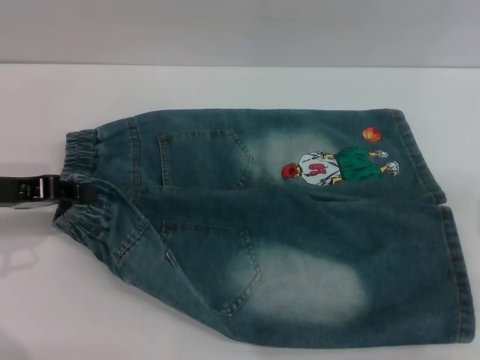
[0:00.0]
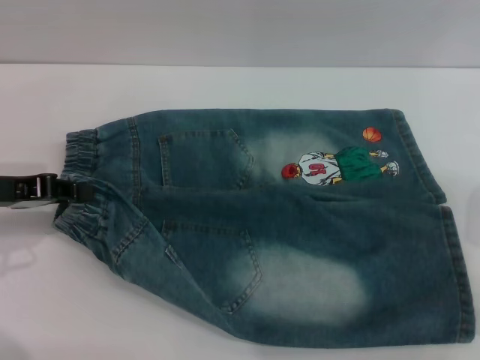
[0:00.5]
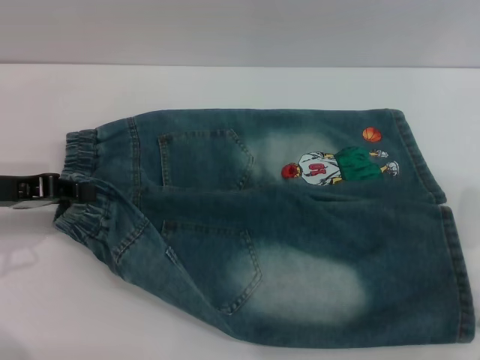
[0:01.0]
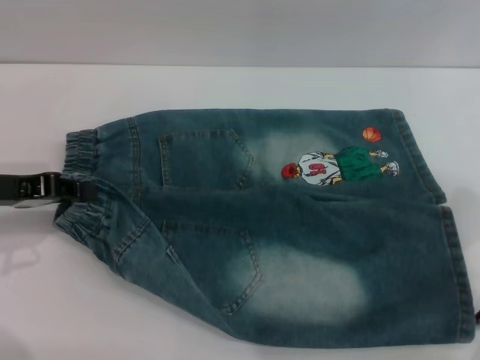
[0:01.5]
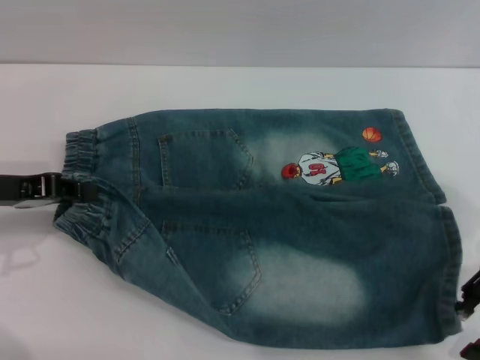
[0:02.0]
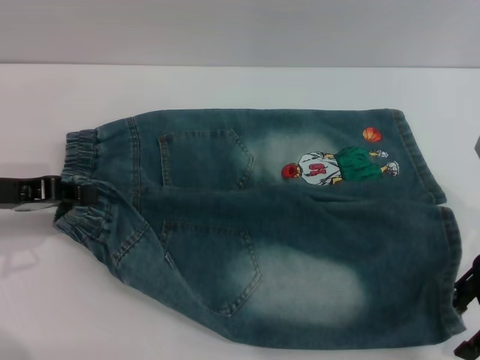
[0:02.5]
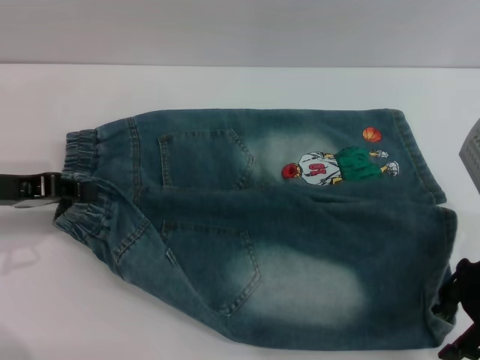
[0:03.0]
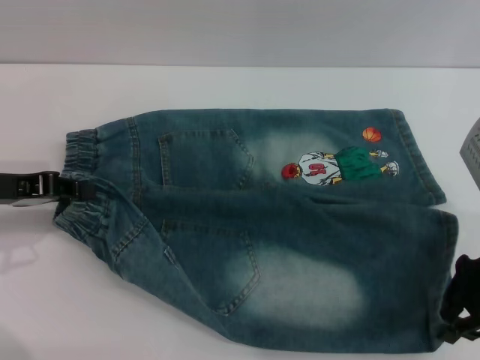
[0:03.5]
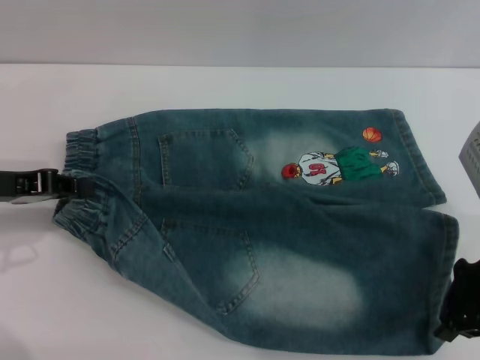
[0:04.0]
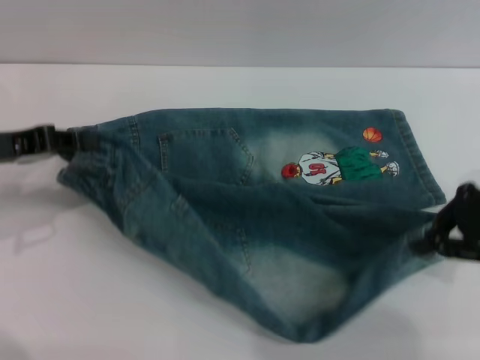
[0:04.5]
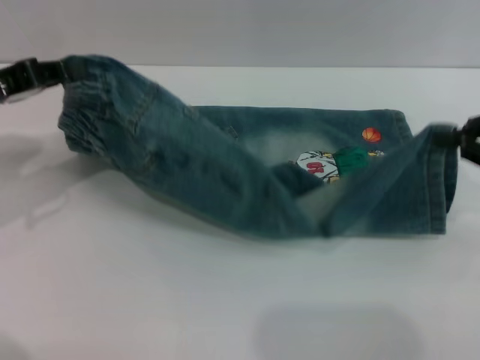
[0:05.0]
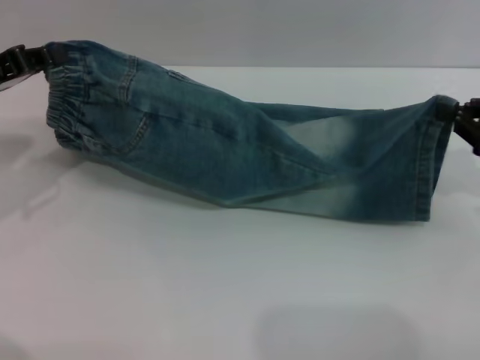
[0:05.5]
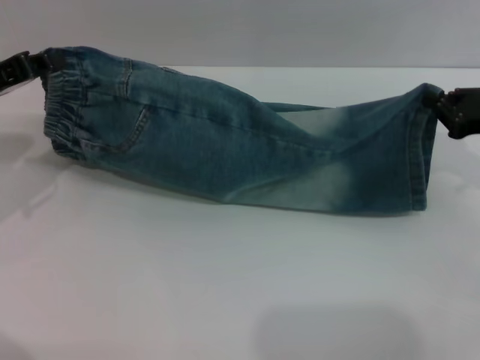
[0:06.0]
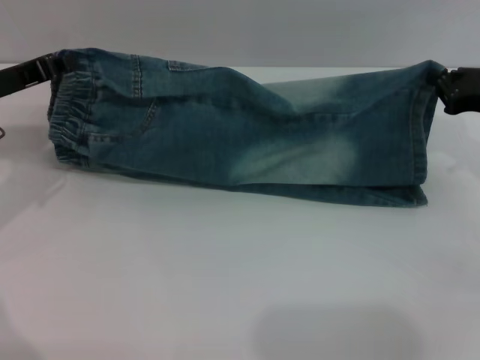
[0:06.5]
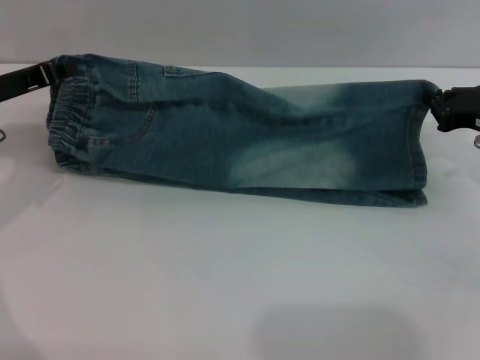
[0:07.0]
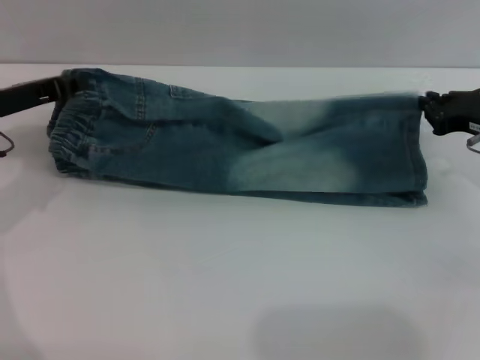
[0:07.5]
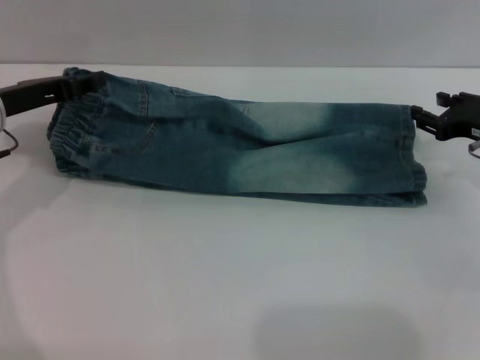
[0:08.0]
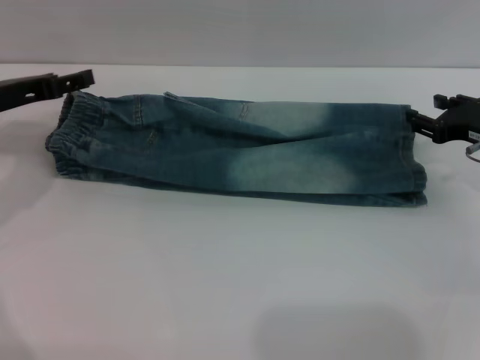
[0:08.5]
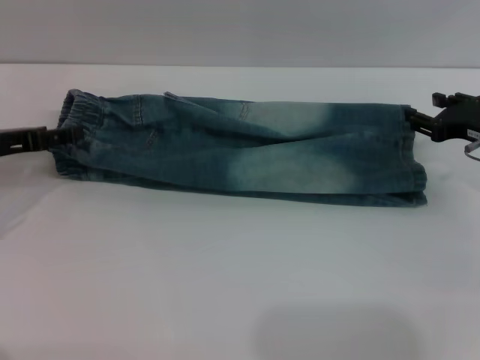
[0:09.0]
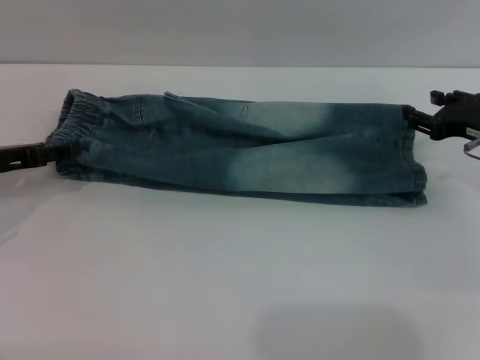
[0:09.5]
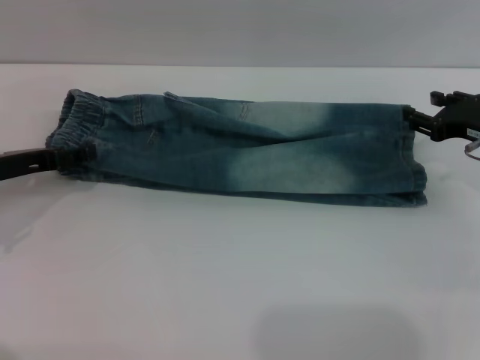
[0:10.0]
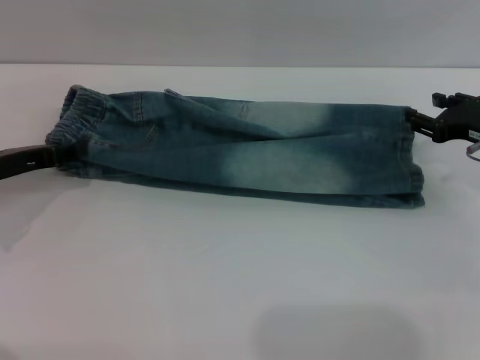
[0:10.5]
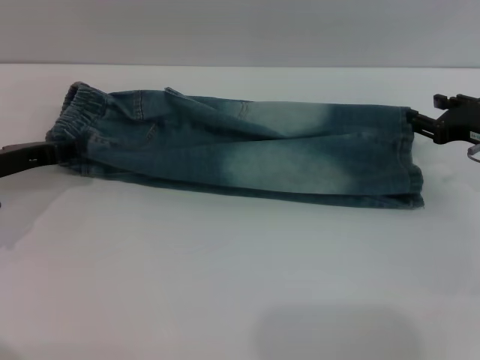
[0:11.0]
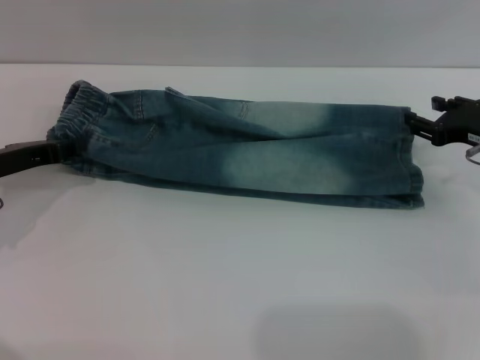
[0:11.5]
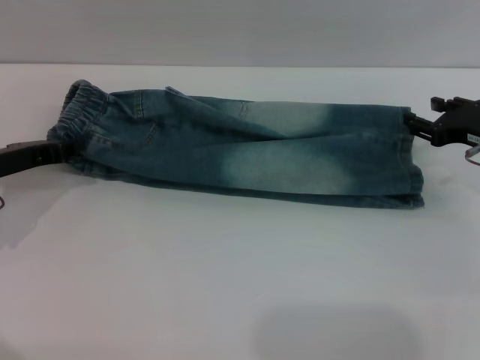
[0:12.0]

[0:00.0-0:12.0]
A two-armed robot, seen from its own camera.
Step, 0:00.0 to 0:08.5: Fold the bottom of the pants upward with both grippers.
0:00.0 to 0:02.0: The right gripper goes approximately 5 cm to the left.
0:02.0 to 0:04.0: The right gripper closes up.
0:04.0 to 0:06.0: The right gripper moves to the right, approximately 5 cm.
0:06.0 to 0:08.0: The right gripper opens up.
0:08.0 to 0:10.0: The left gripper changes place by approximately 5 cm, and opens up.
0:10.0 to 0:12.0: The left gripper closes.

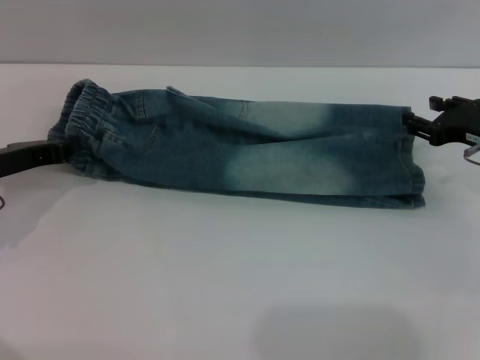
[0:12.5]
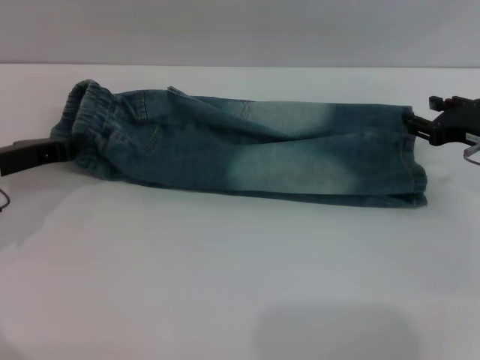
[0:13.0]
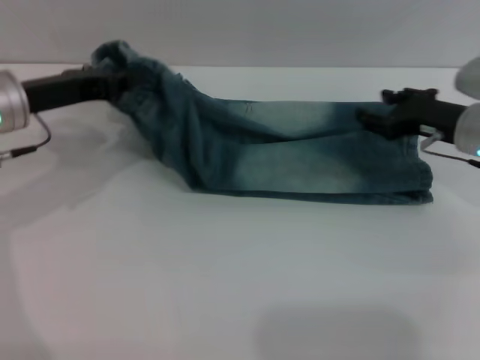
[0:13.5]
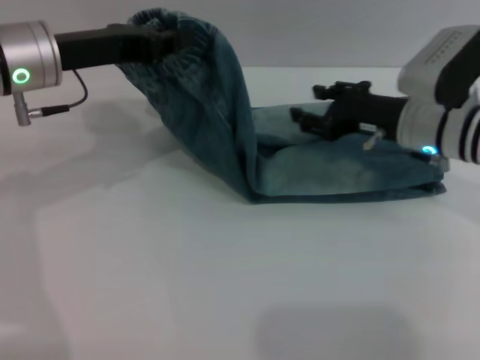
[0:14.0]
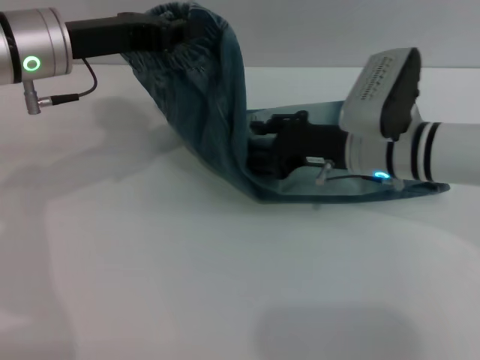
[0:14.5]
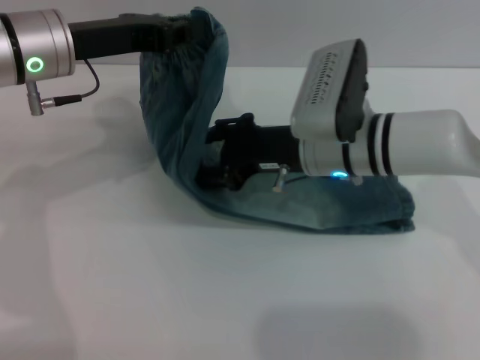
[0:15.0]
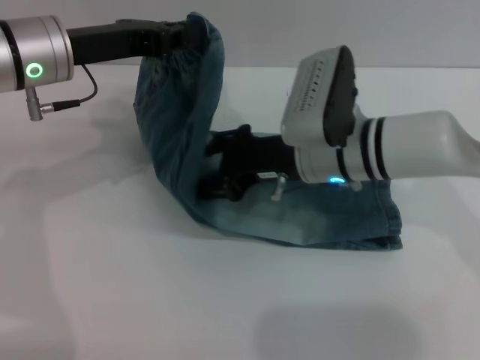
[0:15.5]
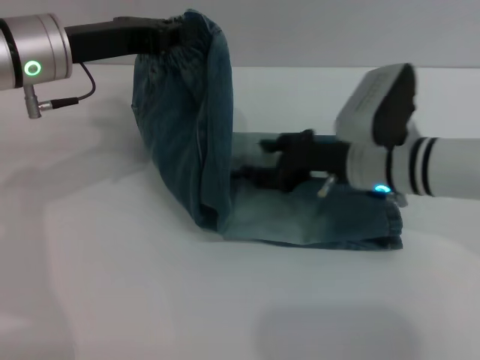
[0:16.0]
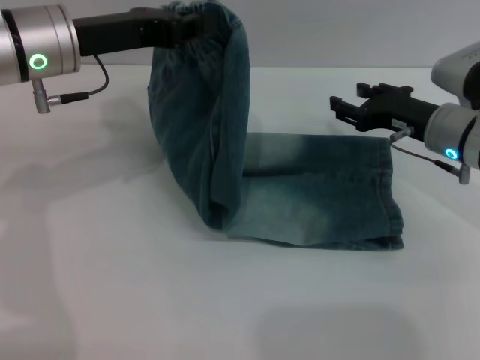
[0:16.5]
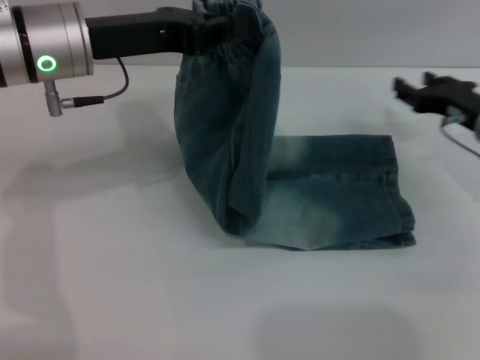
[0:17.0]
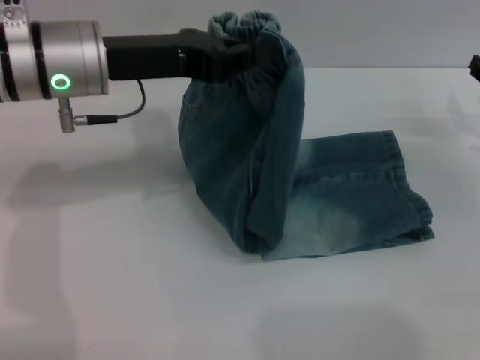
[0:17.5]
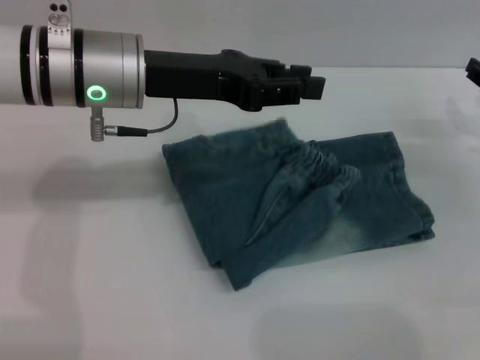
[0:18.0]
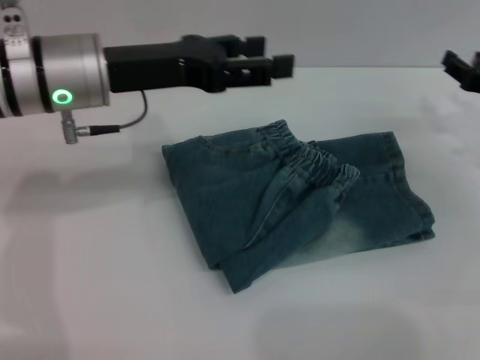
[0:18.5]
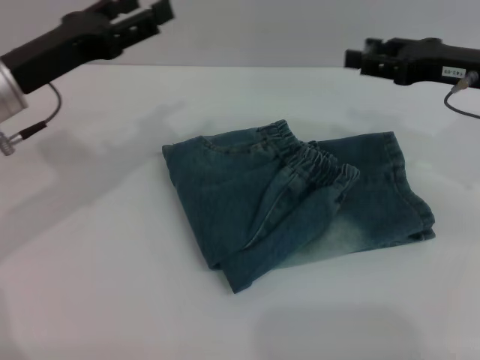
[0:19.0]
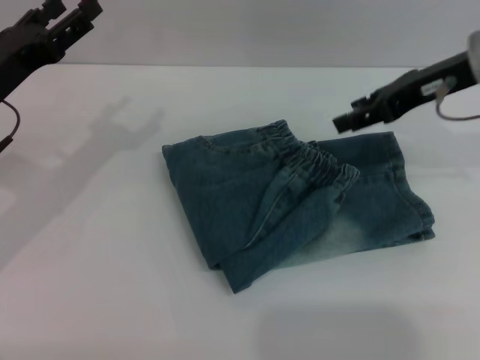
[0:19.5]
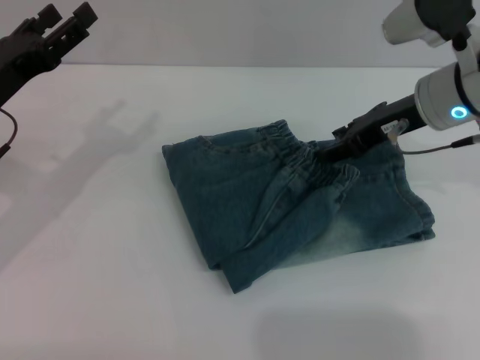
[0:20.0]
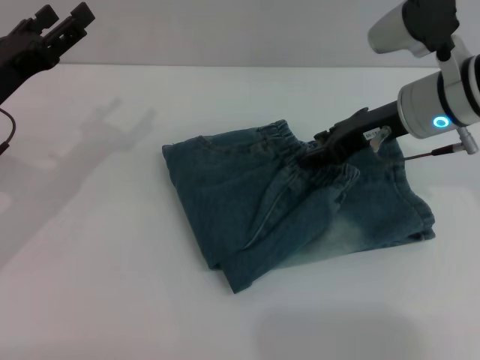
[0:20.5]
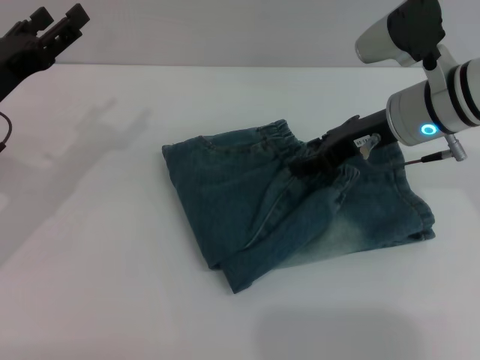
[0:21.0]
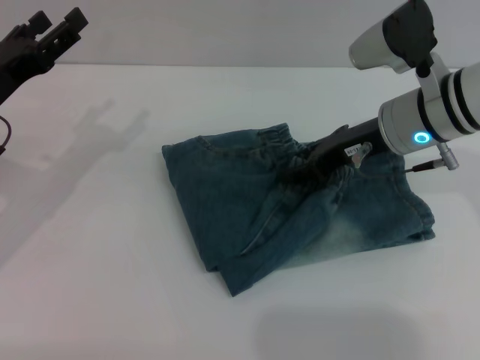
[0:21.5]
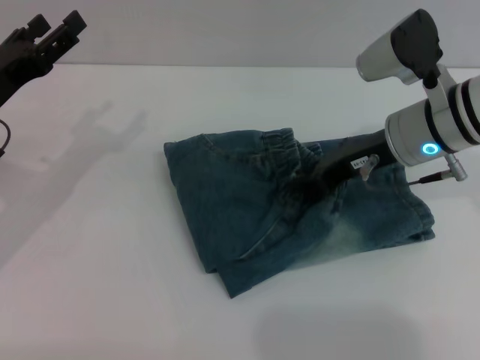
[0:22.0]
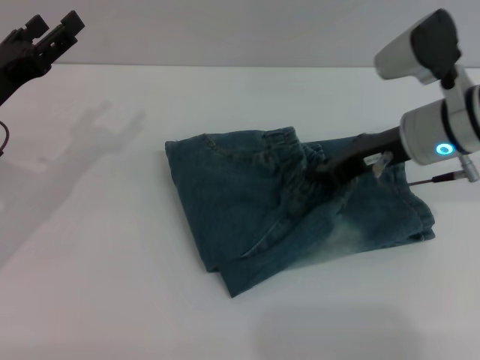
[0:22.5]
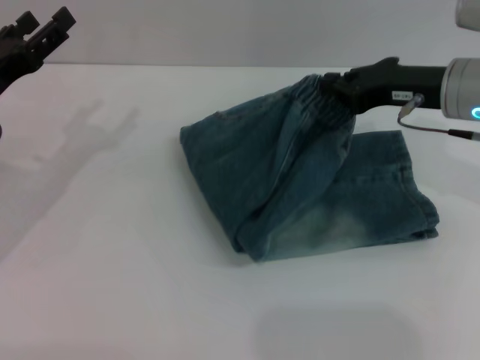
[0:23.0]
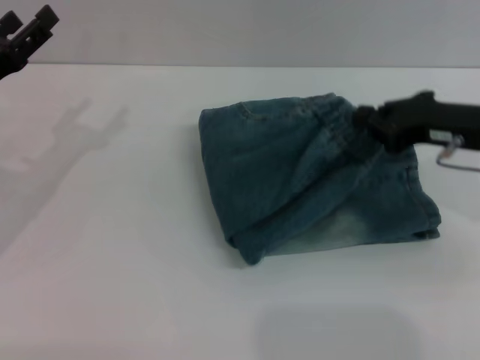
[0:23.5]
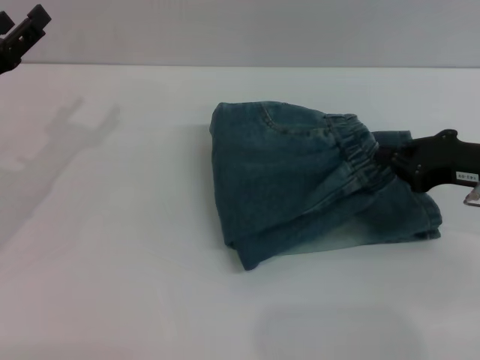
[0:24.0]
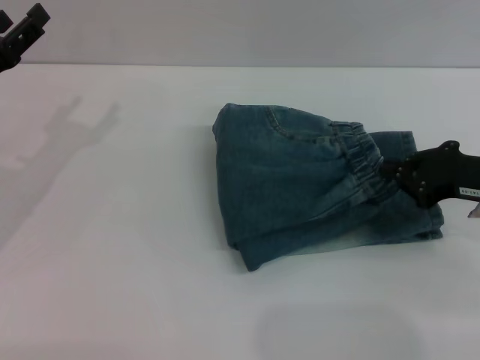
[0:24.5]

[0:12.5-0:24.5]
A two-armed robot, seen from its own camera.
Step, 0:12.5 to 0:18.0: Fold the pants from left to right with the left gripper.
0:12.5 to 0:14.5: The right gripper shifts roughly 15 cm to the left. The left gripper moves upward and to the right, approximately 15 cm.
0:14.5 to 0:16.5: The right gripper heads to the right, covering about 10 cm.
0:16.5 to 0:18.5: The right gripper shifts some 10 cm to the right, while the left gripper opens its fingers.
0:18.5 to 0:20.5: The left gripper heads to the left and downward, covering some 15 cm, while the right gripper is displaced to the left and upward by roughly 15 cm.
0:20.5 to 0:22.5: The right gripper closes its fingers.
0:22.5 to 0:24.5: The right gripper moves to the right and backward, approximately 10 cm.

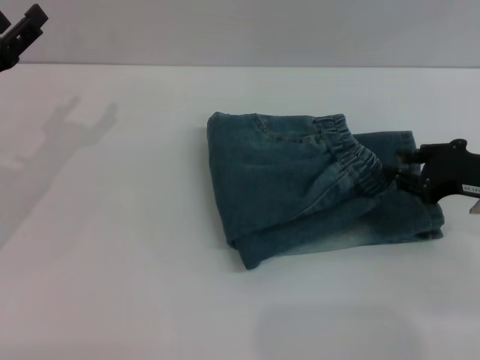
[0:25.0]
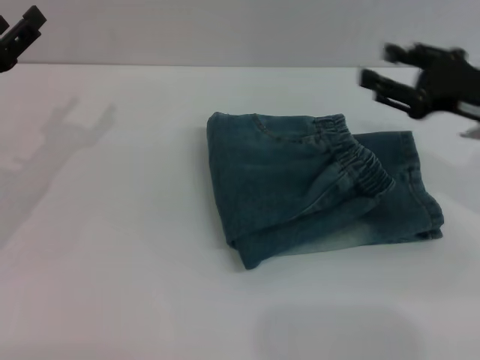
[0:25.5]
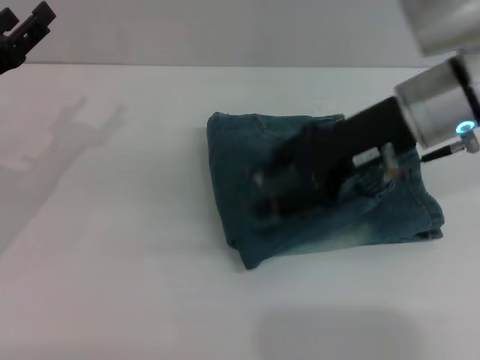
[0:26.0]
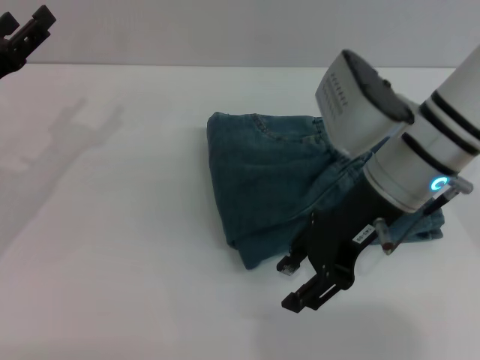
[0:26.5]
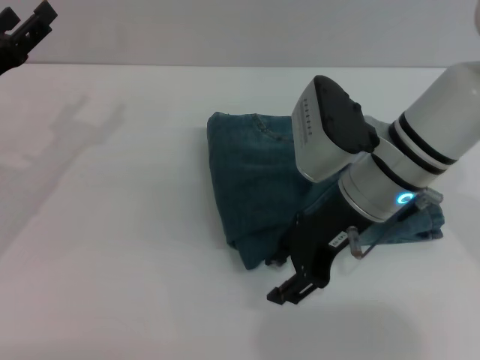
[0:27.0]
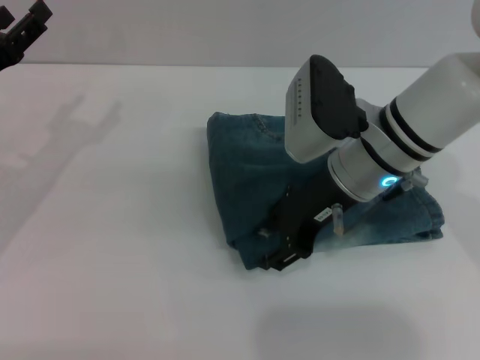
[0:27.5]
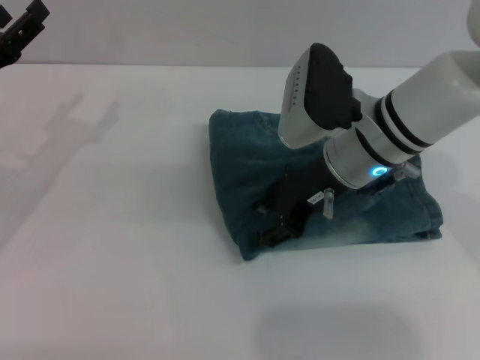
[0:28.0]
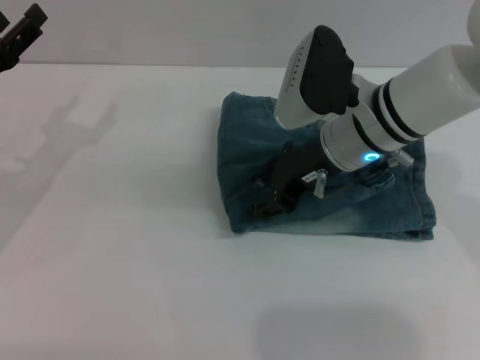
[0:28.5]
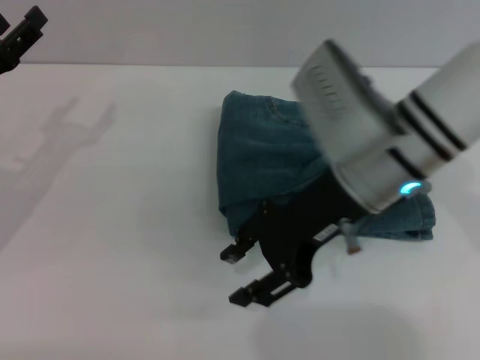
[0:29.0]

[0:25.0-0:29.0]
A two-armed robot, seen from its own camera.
Step, 0:25.0 to 0:28.5: Place the folded trousers onto the center area with the right grippers.
0:25.0 to 0:27.0: The right gripper is displaced to the left by roughly 20 cm, and opens up.
0:27.0 to 0:29.0: There are only small adjustments of the grippers.
